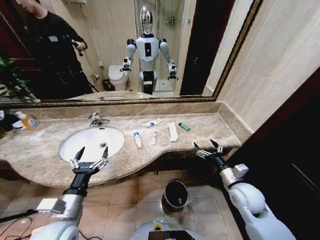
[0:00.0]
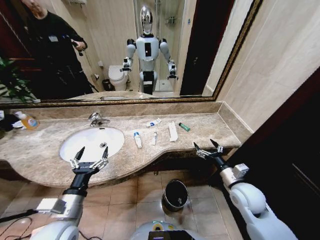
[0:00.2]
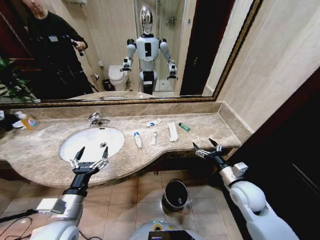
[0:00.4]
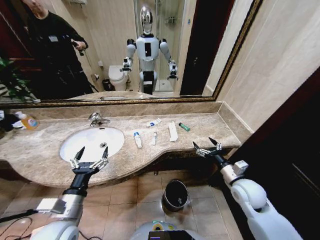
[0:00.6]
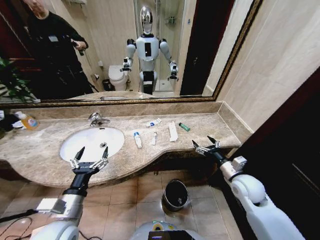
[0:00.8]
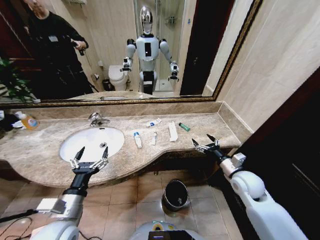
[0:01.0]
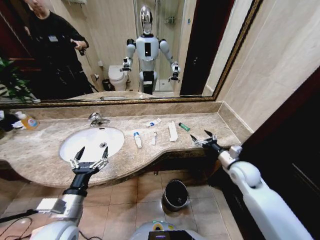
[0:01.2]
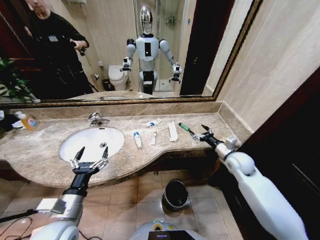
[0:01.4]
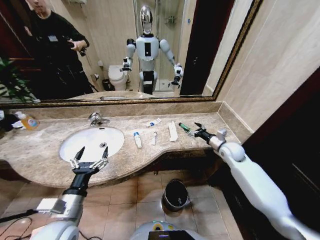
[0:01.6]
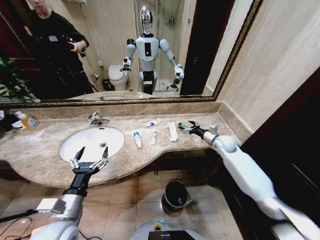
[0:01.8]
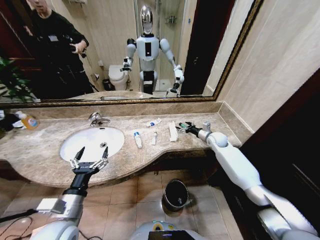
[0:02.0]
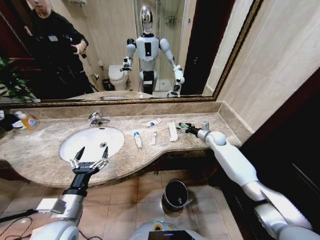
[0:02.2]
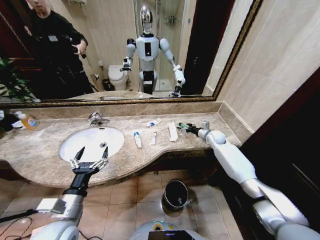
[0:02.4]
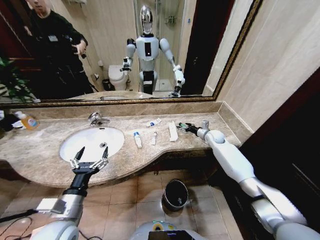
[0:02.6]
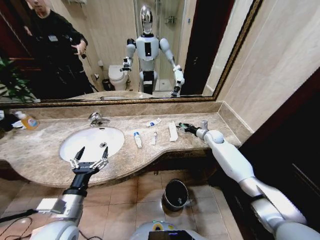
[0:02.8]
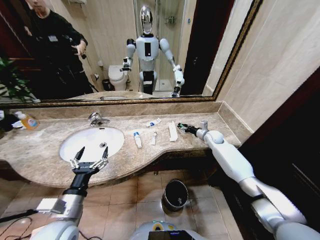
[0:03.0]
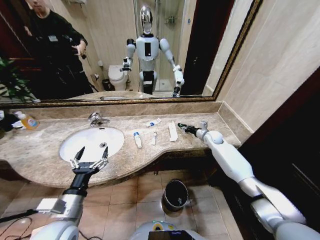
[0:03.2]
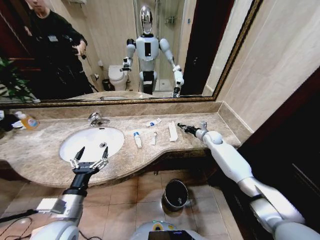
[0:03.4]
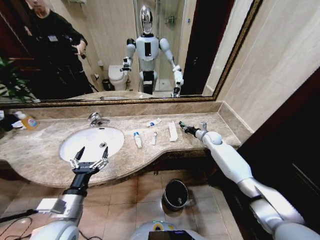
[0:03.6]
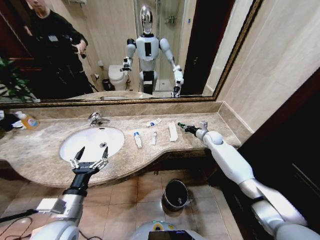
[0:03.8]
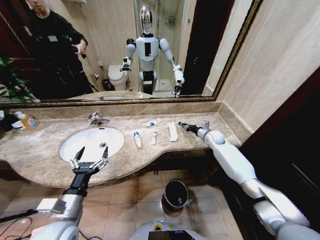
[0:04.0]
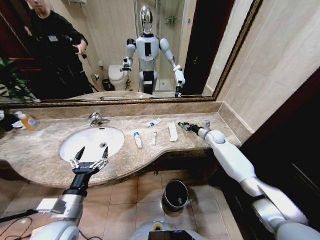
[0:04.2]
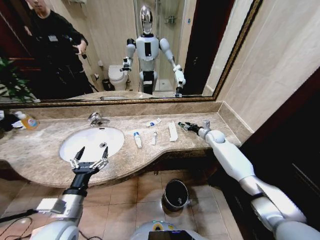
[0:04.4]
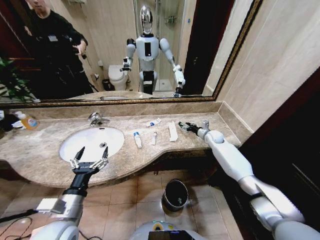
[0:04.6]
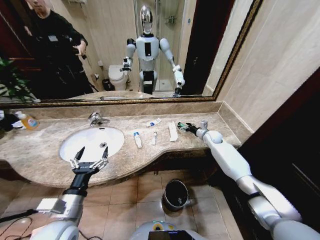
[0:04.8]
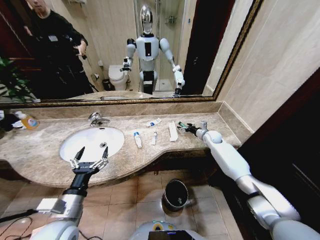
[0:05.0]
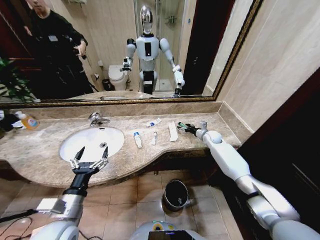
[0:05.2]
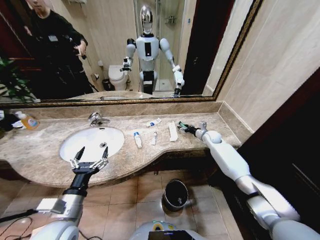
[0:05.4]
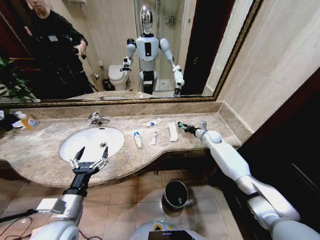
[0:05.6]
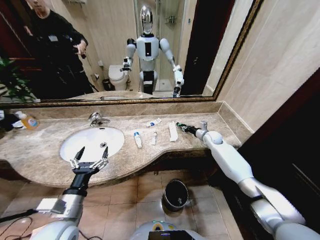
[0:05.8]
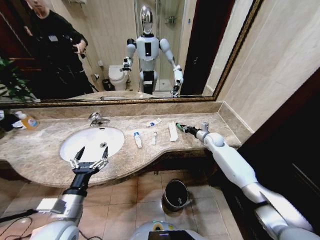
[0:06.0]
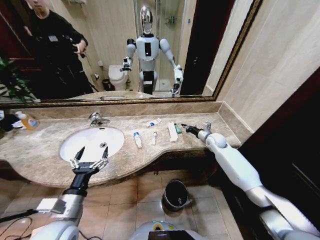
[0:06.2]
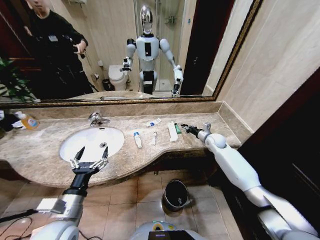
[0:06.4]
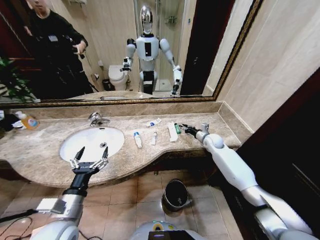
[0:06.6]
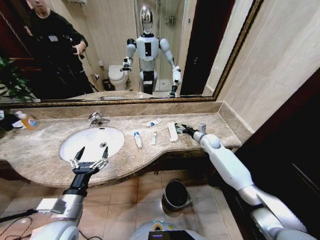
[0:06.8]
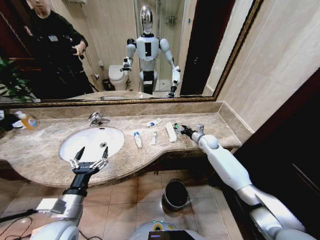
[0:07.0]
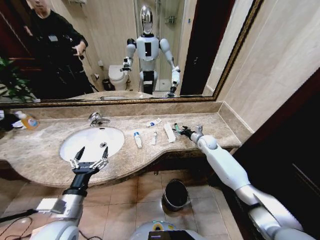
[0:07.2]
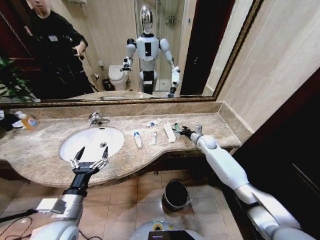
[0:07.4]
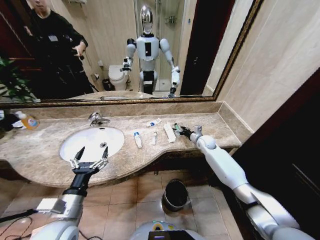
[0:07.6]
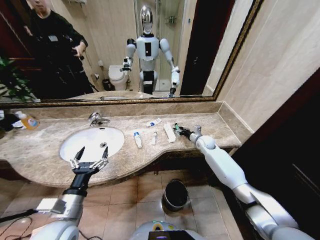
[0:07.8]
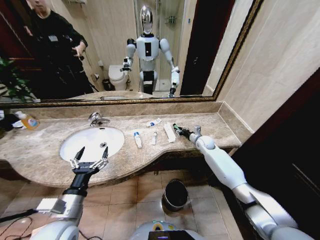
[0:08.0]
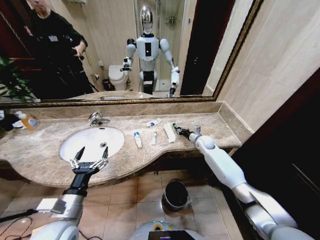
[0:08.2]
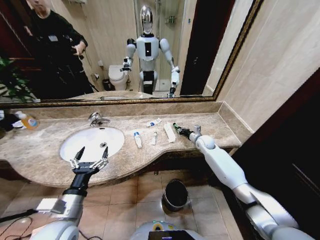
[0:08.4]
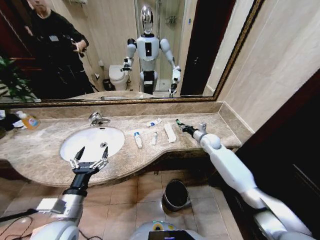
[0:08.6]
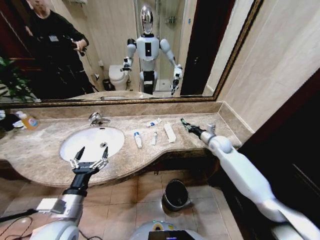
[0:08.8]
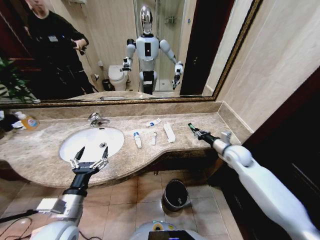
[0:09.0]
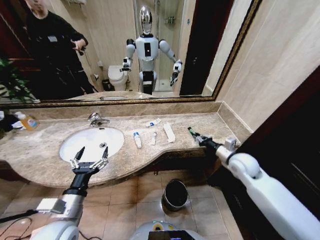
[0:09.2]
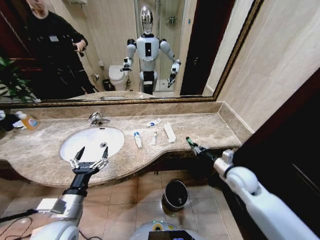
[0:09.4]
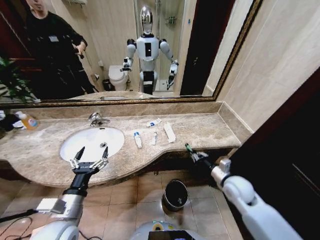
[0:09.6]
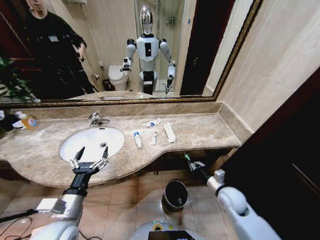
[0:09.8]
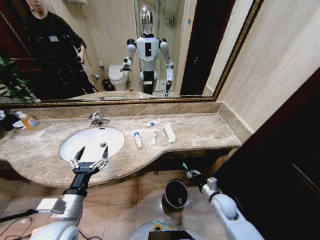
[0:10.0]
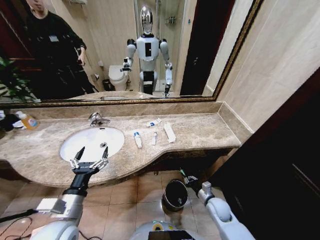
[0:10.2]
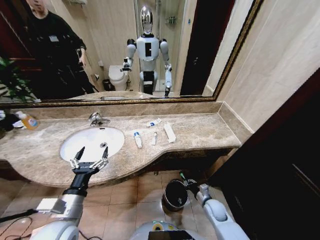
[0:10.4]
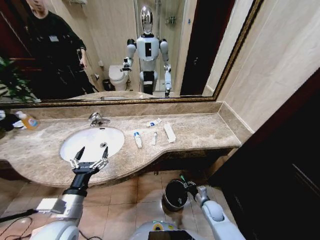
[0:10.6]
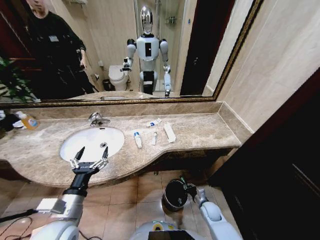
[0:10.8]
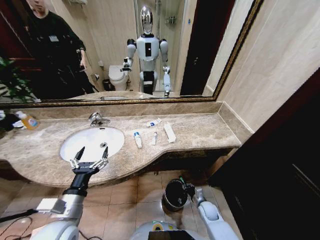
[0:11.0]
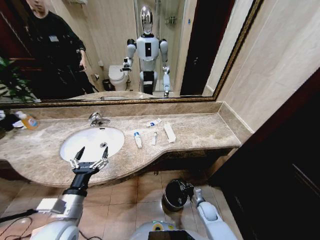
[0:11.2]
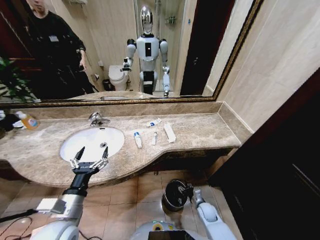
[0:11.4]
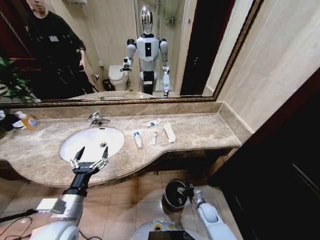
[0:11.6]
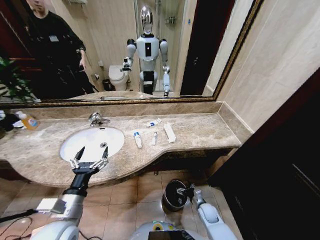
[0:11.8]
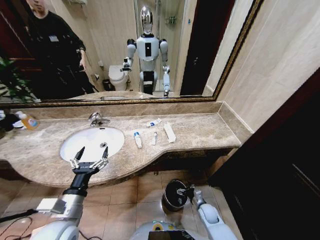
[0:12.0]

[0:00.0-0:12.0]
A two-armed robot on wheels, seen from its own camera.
Task of the whole recording: Pick up the trash from the sink and place it in the trash bin.
0:01.6 to 0:03.0: The right gripper heads forward, covering about 15 cm, and closes.
0:03.0 to 0:04.4: The right gripper closes and opens again.
0:04.4 to 0:06.0: The right gripper closes up.
0:06.0 to 0:07.6: The right gripper opens.
0:07.6 to 0:09.0: The right gripper heads backward, upward and to the right, covering about 15 cm, and closes its fingers.
0:09.0 to 0:10.4: The right gripper travels downward and backward by about 30 cm.
0:10.4 to 0:12.0: The right gripper heads downward, covering about 5 cm, and opens its fingers.

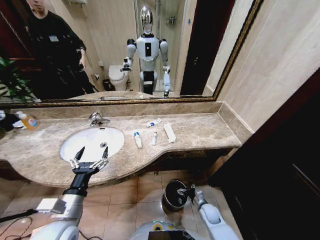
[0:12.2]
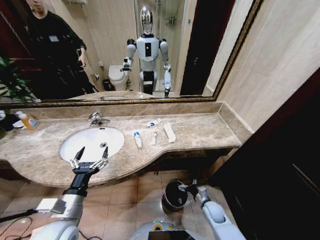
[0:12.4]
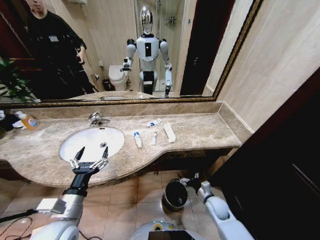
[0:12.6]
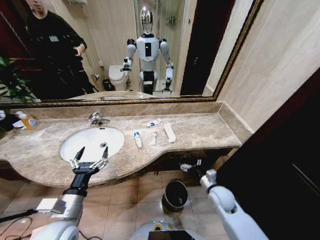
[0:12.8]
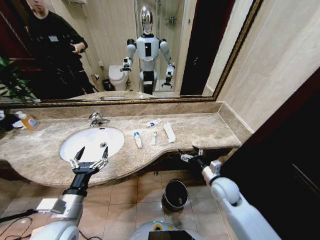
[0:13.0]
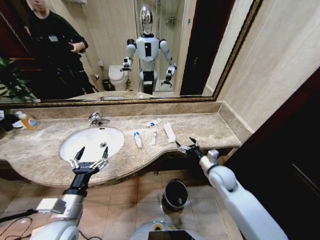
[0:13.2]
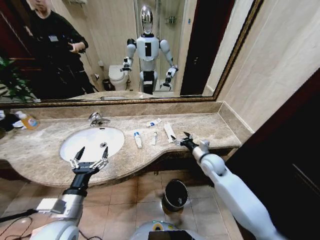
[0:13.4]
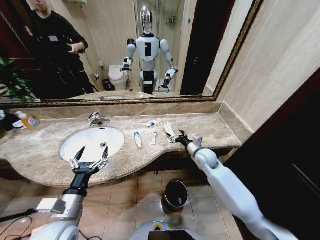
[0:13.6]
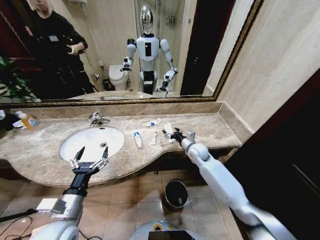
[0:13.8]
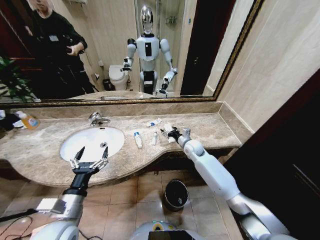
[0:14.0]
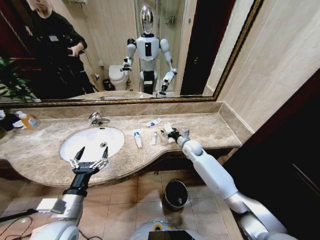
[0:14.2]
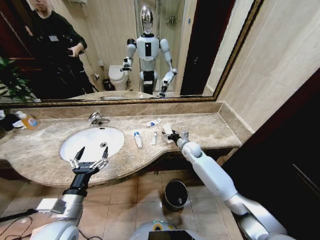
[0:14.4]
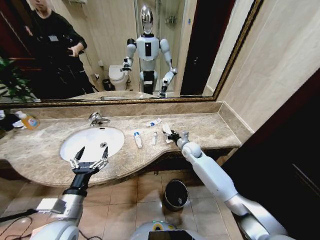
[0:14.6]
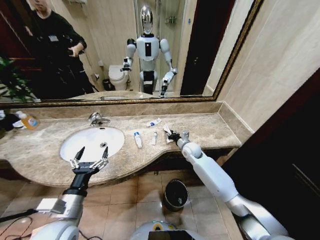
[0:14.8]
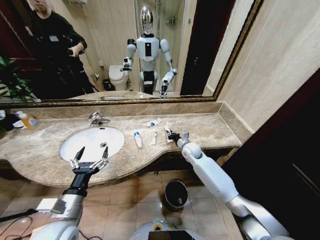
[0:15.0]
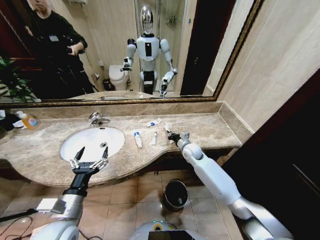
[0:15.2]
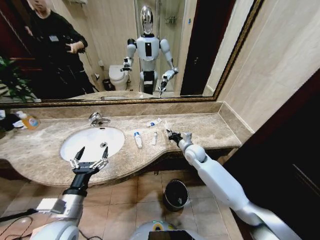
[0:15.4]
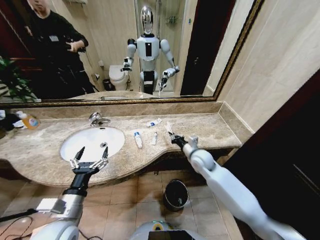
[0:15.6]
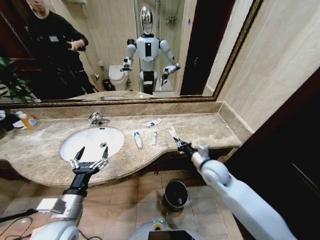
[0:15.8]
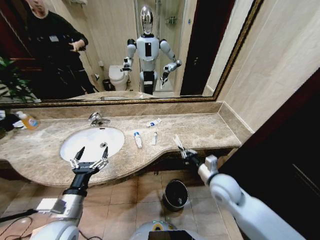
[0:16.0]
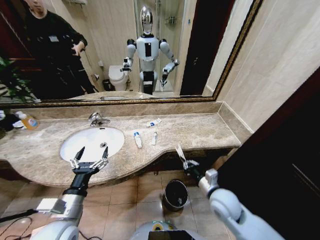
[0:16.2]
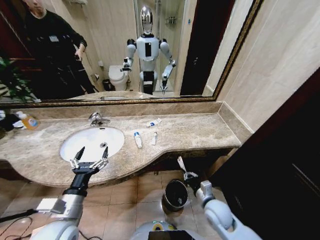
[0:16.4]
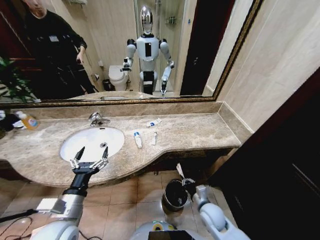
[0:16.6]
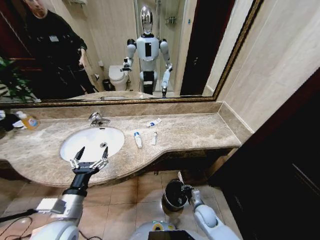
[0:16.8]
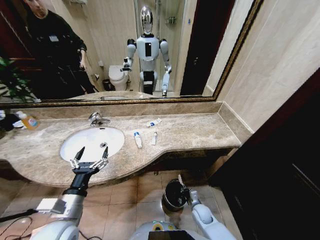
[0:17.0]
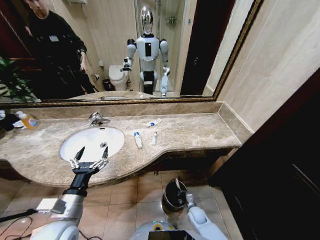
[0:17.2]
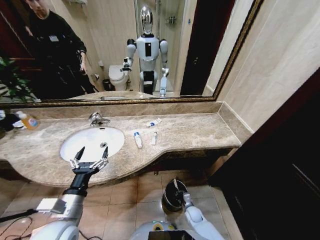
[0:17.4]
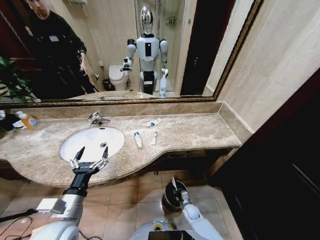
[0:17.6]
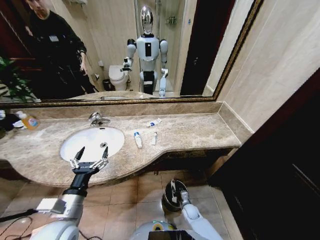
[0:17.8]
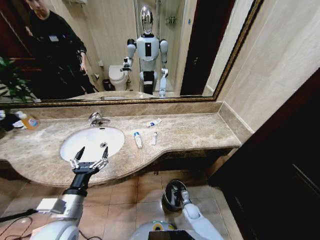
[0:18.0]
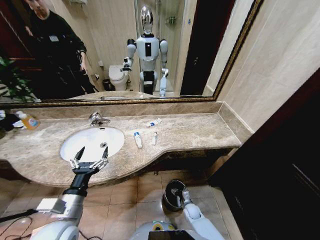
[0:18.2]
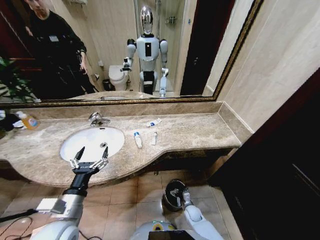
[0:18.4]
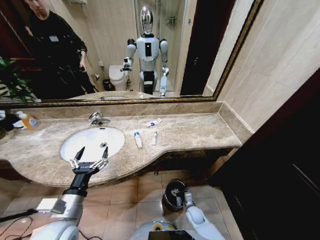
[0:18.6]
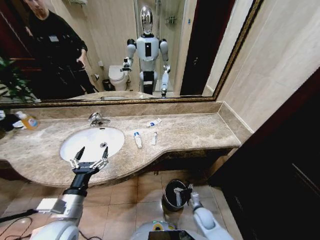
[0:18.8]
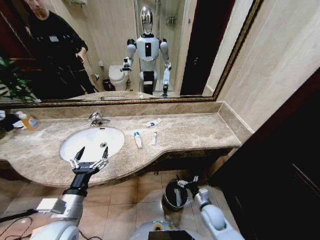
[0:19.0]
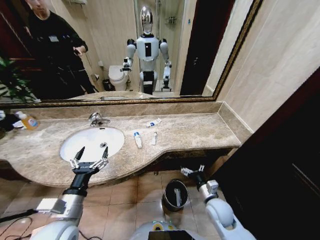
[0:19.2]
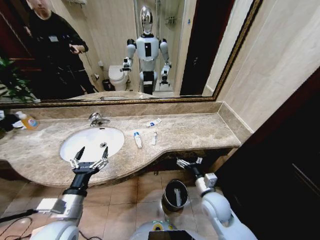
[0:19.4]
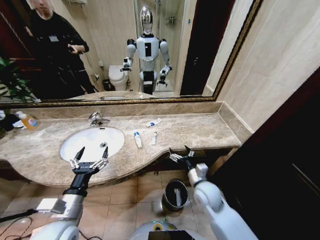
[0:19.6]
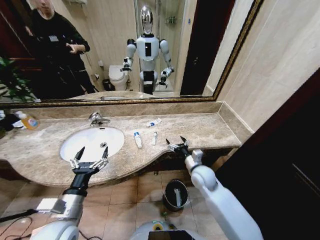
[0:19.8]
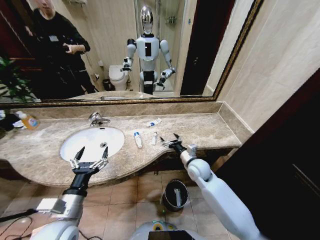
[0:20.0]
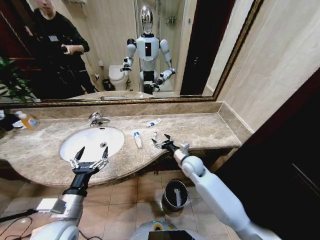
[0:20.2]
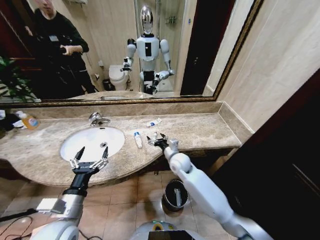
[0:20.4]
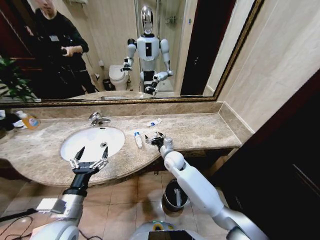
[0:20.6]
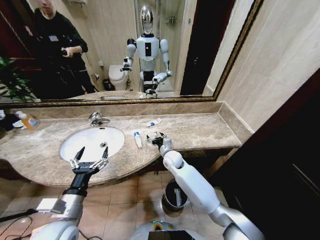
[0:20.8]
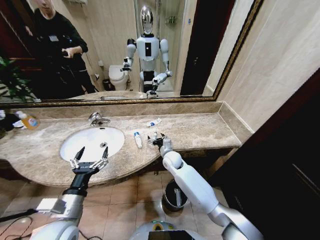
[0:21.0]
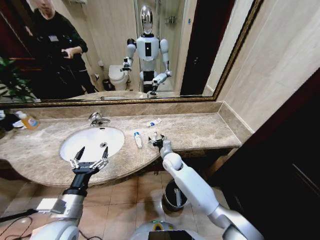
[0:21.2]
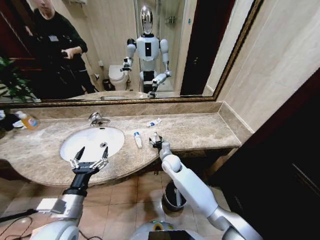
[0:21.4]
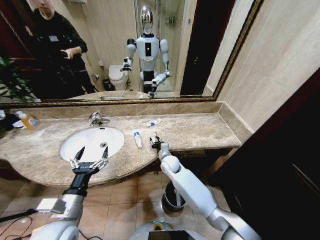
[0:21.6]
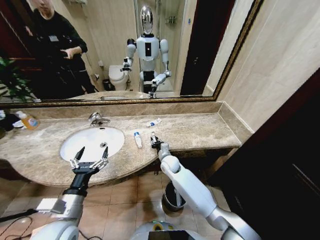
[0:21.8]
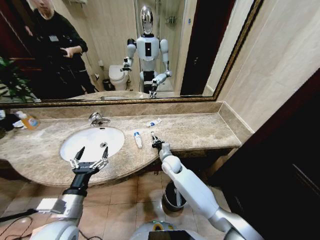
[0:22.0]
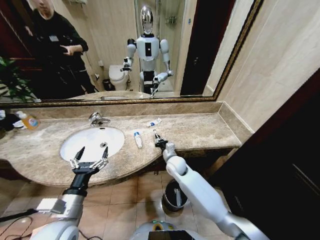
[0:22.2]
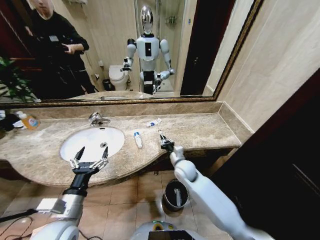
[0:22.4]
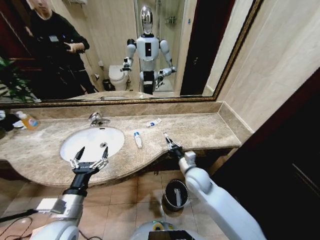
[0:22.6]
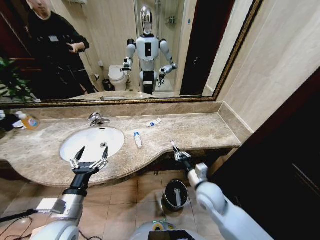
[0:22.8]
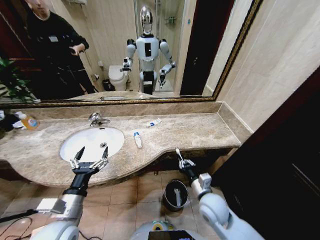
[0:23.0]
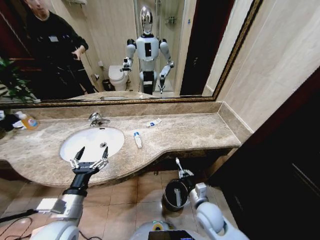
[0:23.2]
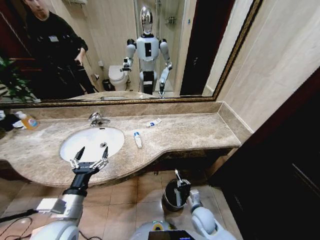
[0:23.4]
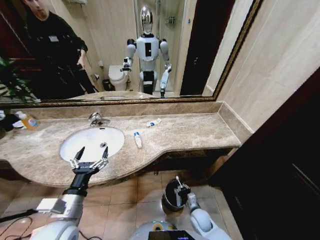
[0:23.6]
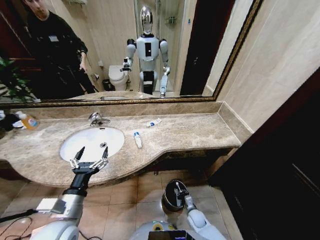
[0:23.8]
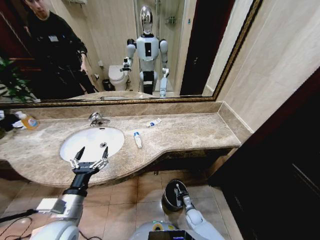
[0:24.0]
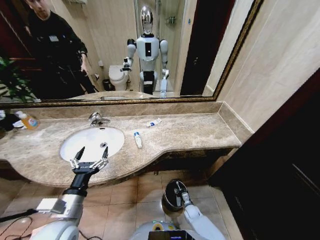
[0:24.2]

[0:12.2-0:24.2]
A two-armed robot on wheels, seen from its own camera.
Task of the whole recording: Pick up the trash from the sink and place it in the trash bin.
0:12.2 to 0:13.8: The right gripper travels upward and forward by about 35 cm.
0:13.8 to 0:15.2: The right gripper closes.
0:15.2 to 0:16.6: The right gripper moves backward and downward, some 30 cm.
0:16.6 to 0:18.2: The right gripper travels downward by about 20 cm, and opens its fingers.
0:18.2 to 0:19.8: The right gripper is displaced upward by about 30 cm.
0:19.8 to 0:21.2: The right gripper shifts some 15 cm to the left and forward.
0:21.2 to 0:22.6: The right gripper shifts roughly 15 cm backward and to the right, and closes.
0:22.6 to 0:24.2: The right gripper shifts some 35 cm downward.
